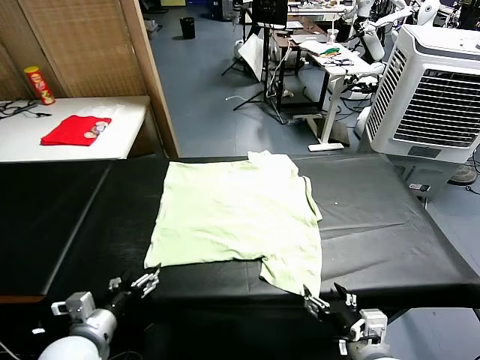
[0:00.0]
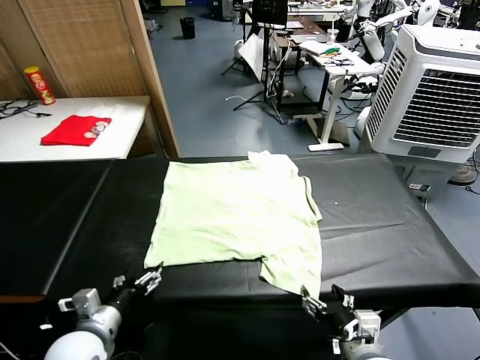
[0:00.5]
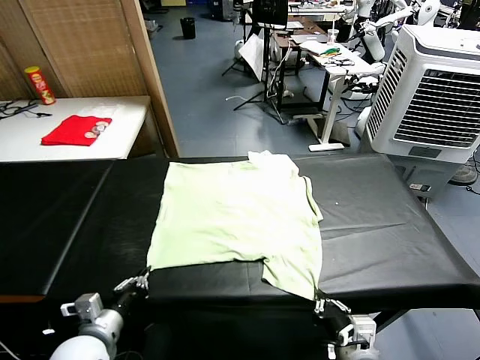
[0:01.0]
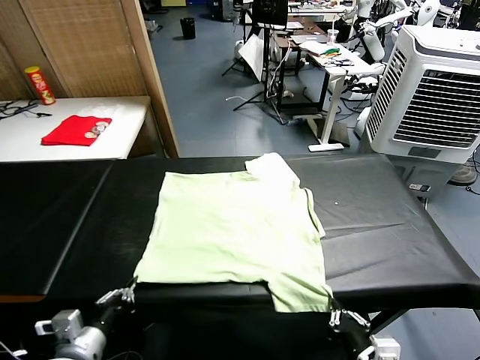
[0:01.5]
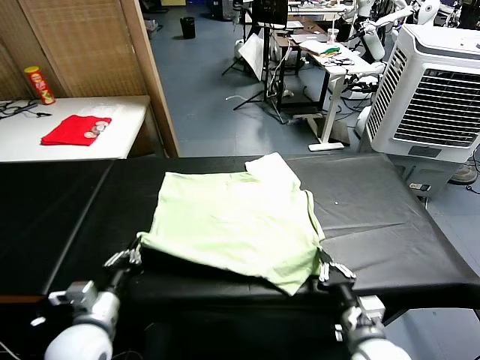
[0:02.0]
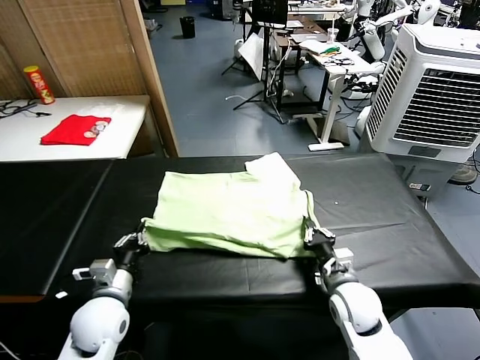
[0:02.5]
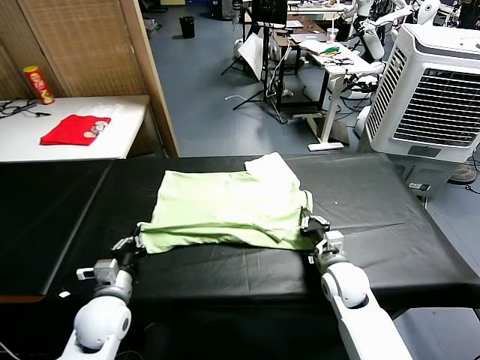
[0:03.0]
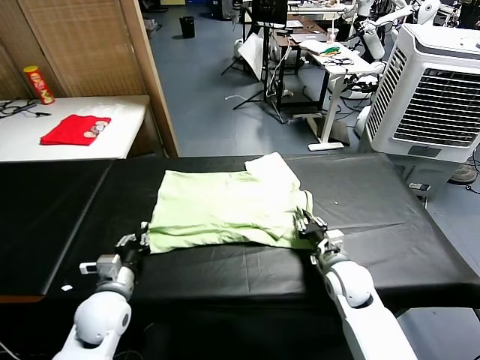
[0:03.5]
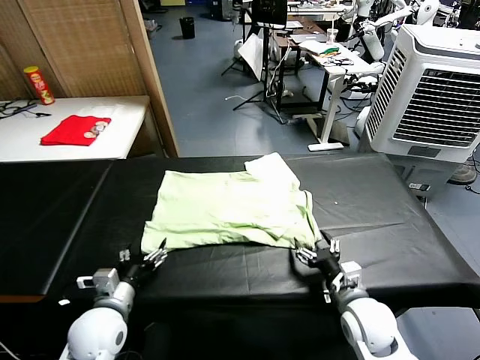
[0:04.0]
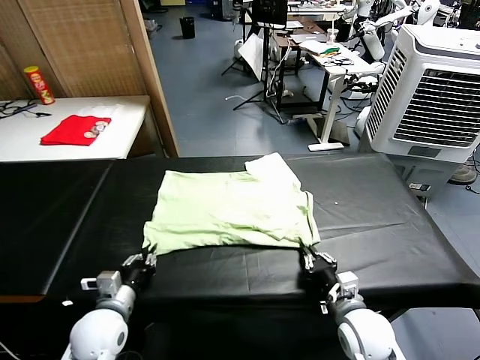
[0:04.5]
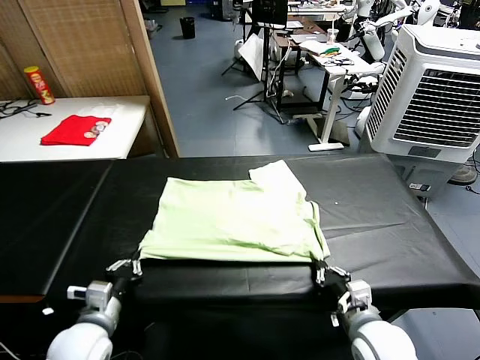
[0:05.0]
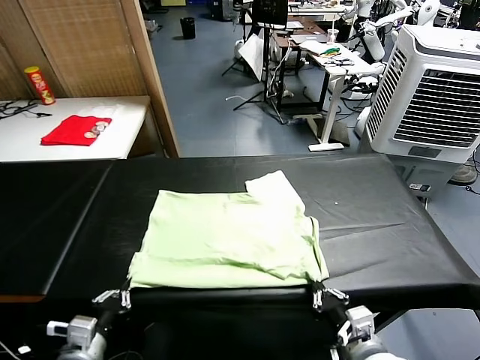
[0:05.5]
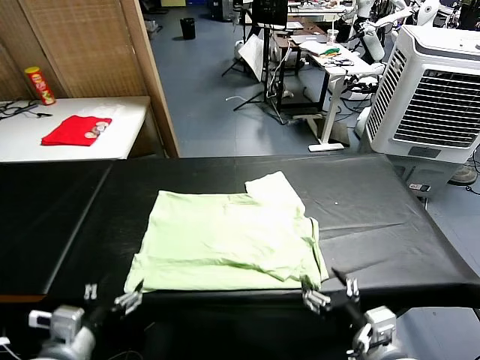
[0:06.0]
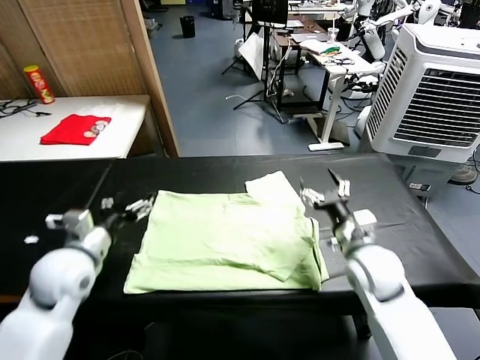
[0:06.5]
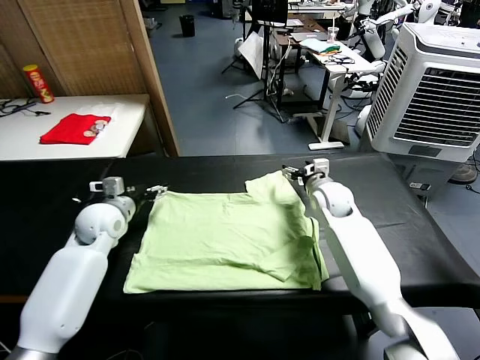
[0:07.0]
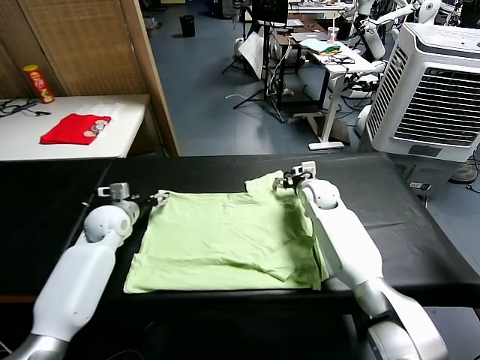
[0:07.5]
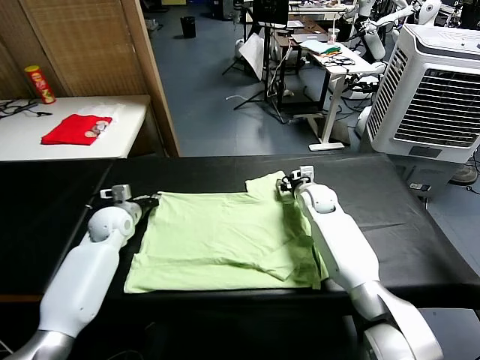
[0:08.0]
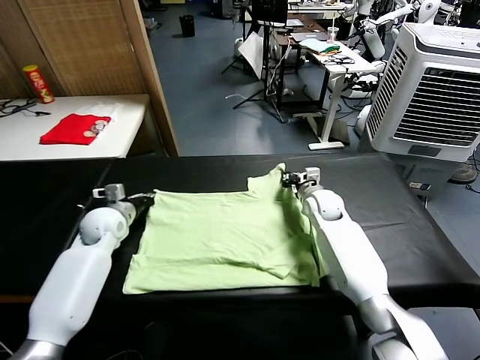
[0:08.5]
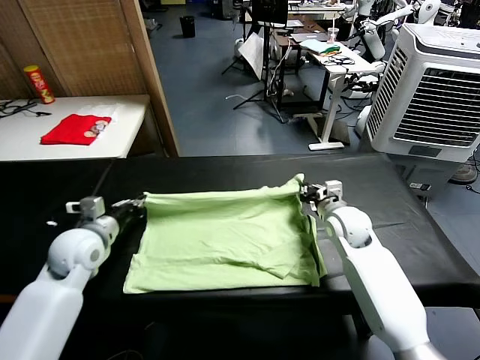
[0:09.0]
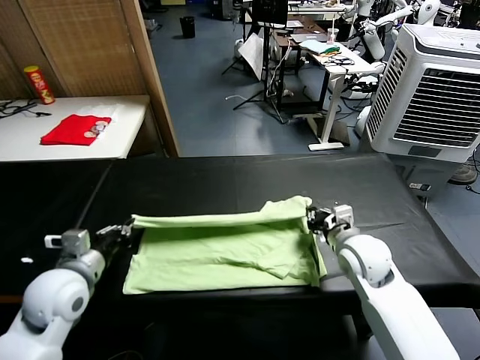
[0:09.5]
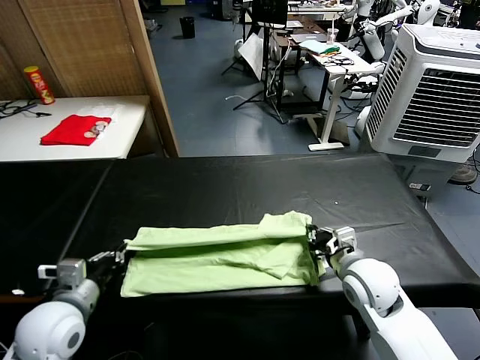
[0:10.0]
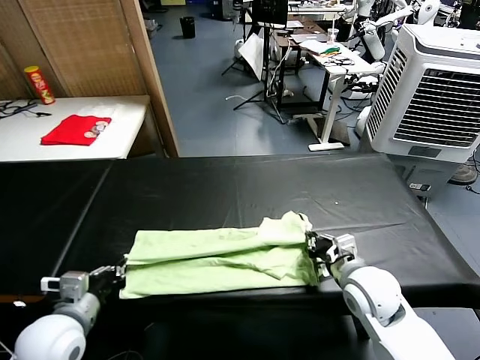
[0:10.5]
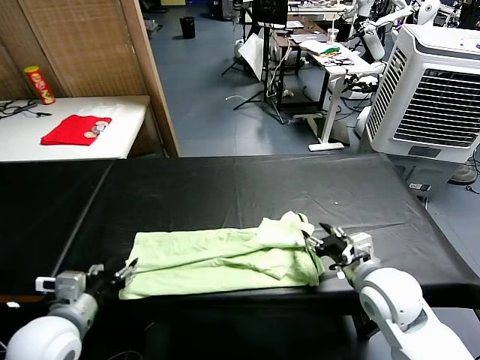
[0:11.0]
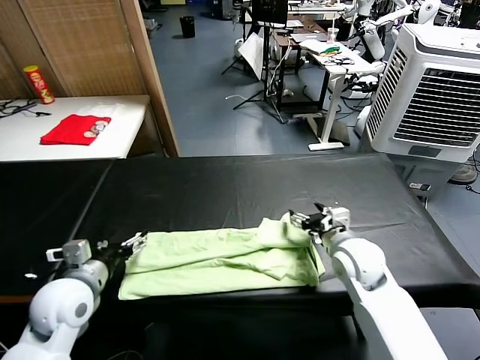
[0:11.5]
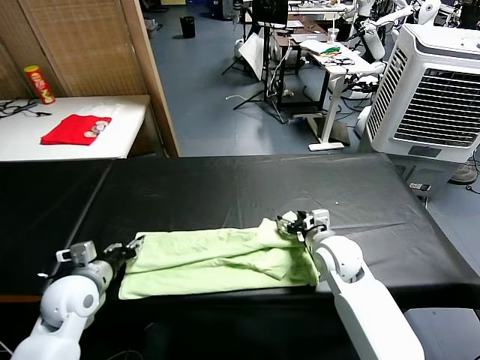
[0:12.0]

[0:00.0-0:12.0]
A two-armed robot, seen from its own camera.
Task of the whole recording: fold and organize the clothes.
Step, 0:00.0 to 0:01.0: use both grippers simultaneously to clamp the lower edge of the clothing fabric.
Step, 0:01.5 to 0:03.5: use both grippers to drag the lower edge of the fabric forward and fold it over the upper edge.
Step, 0:04.0 to 0:05.5: Drag the clothes downward with both gripper.
Step, 0:06.0 to 0:08.0: use both grippers simultaneously to clamp the upper edge of the clothing fabric.
Step, 0:08.5 to 0:11.0: use both grippers to drag the upper edge of the fabric backward and fold it over the lower edge.
0:02.0 to 0:04.0: The left gripper opens its fingers. Meanwhile the right gripper goes forward and returns, approximately 15 cm each way, and opens its fingers.
0:04.0 to 0:06.0: The grippers both shift upward and backward by some 15 cm. The left gripper closes, then reopens. Meanwhile the right gripper closes, then reopens.
0:06.0 to 0:08.0: The two grippers go about 35 cm forward. The left gripper closes, while the right gripper closes its fingers.
0:08.0 to 0:10.0: Both grippers move backward, about 25 cm.
0:10.0 to 0:12.0: The grippers both shift forward by some 5 cm. The right gripper opens up; the left gripper opens.

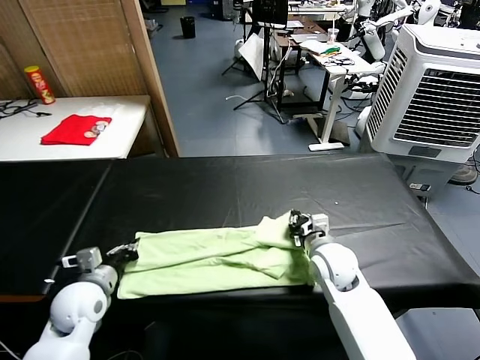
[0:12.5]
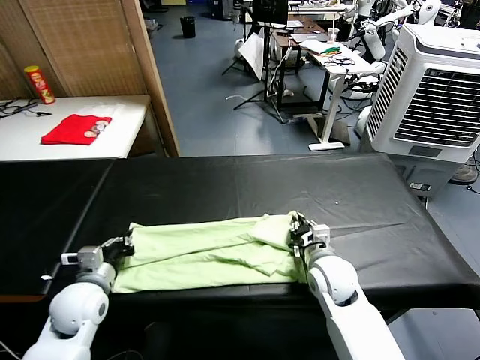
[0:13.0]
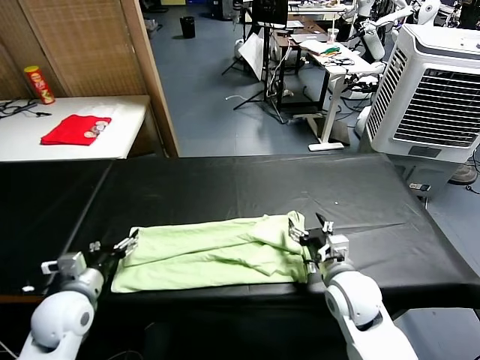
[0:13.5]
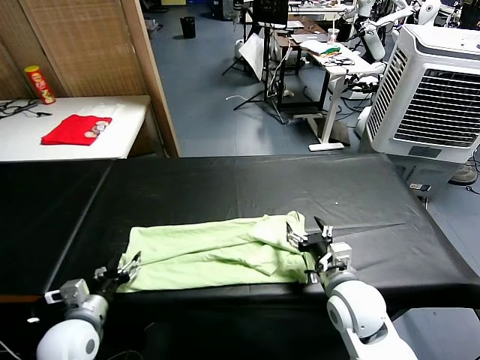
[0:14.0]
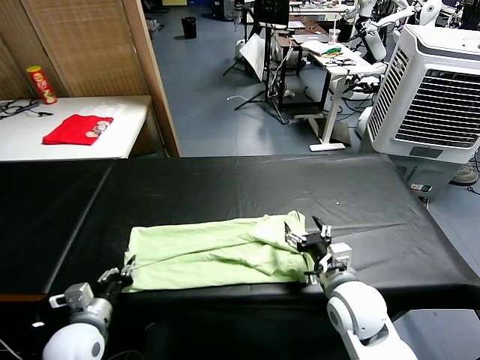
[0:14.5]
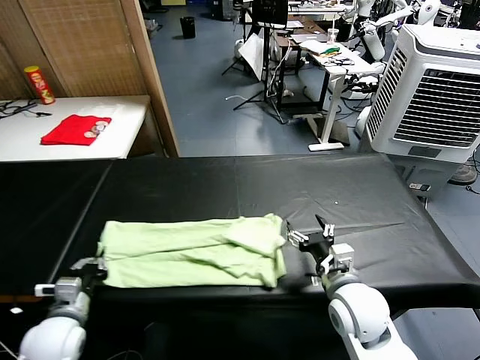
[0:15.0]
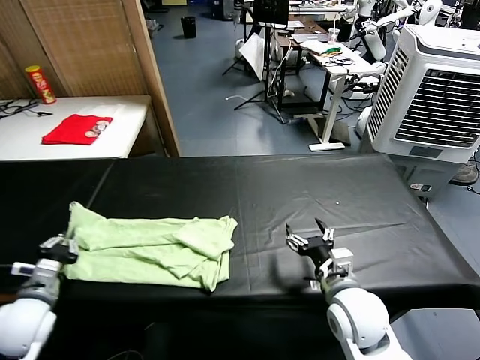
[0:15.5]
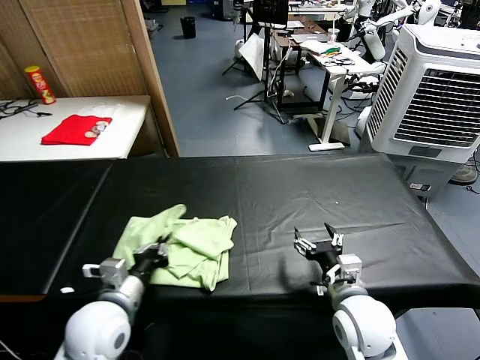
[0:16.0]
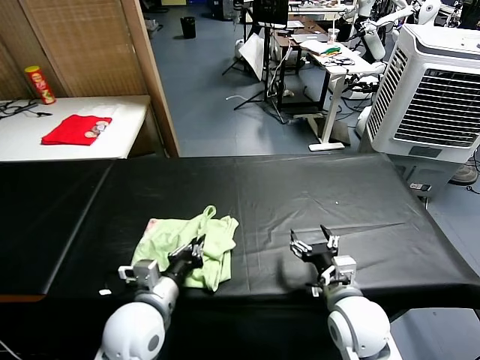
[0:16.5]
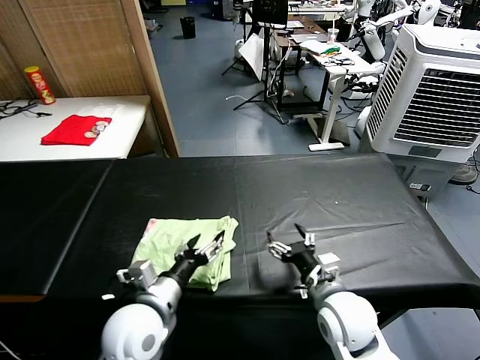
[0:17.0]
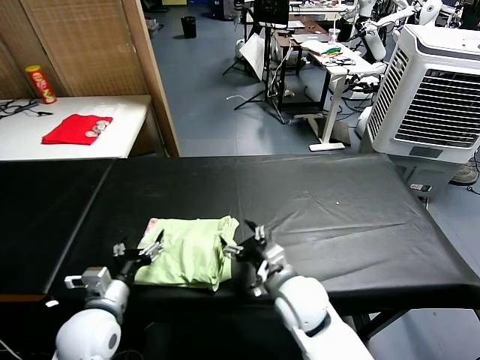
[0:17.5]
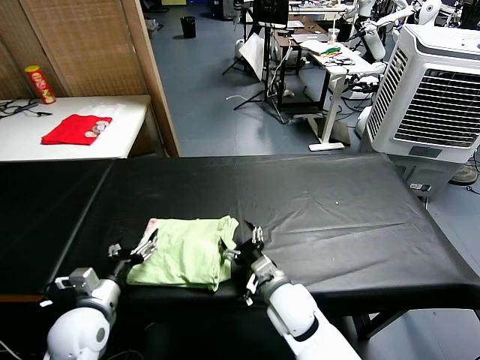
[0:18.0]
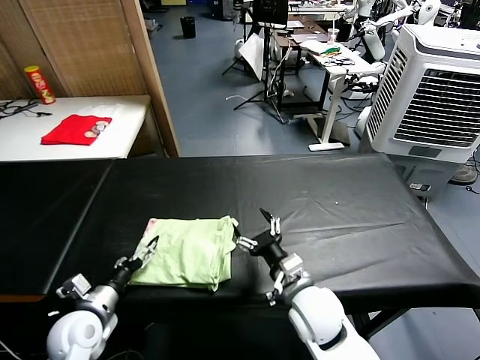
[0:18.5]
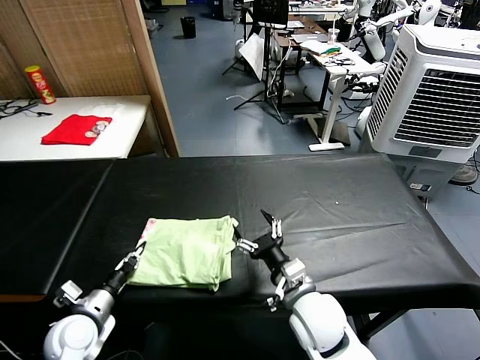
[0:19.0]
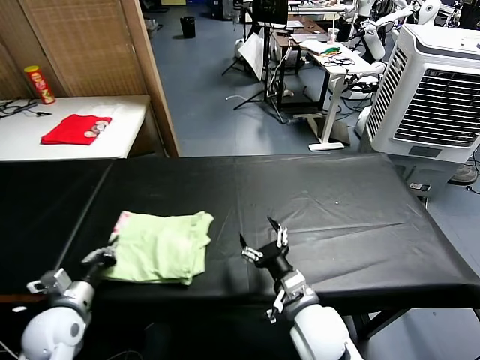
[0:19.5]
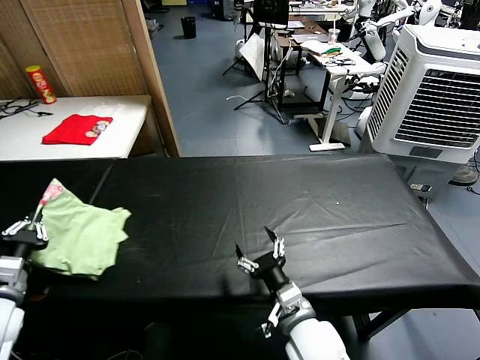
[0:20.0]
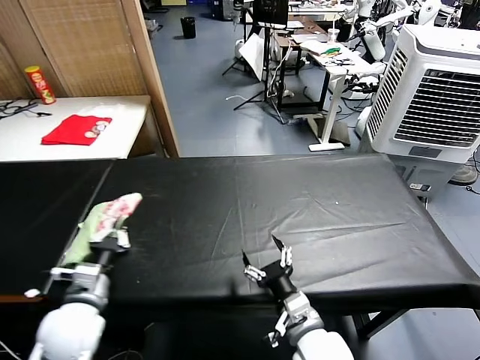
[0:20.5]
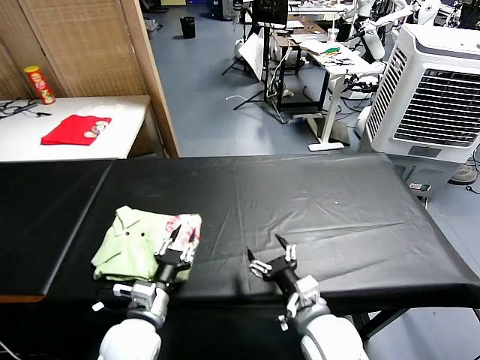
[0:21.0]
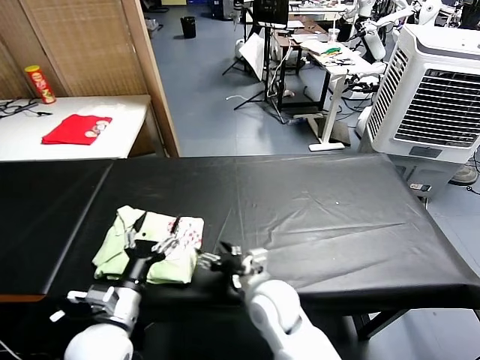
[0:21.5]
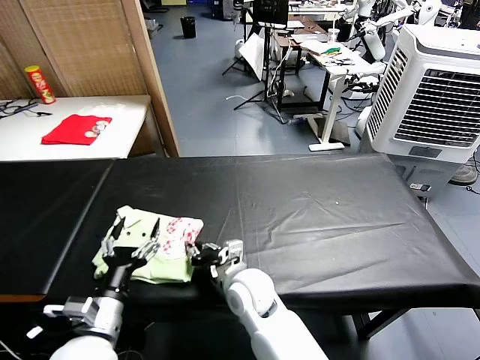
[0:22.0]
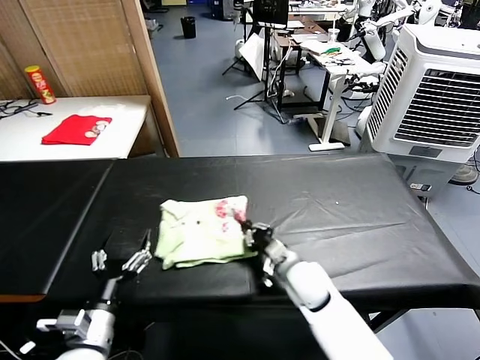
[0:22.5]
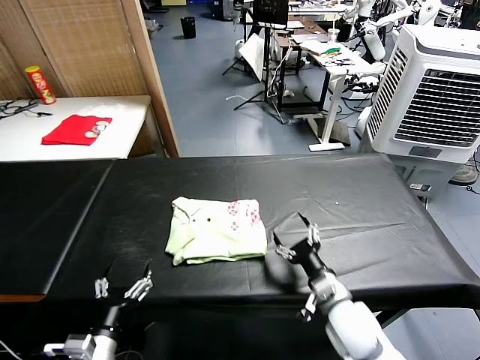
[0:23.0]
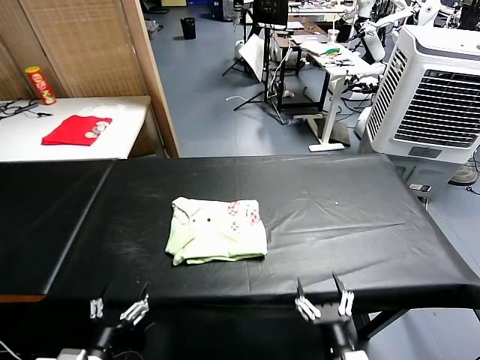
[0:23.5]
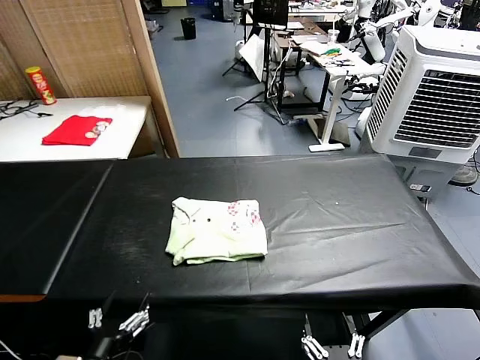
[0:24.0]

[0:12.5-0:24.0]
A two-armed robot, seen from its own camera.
Task of the whole recording: fold and organize the clothes.
Step, 0:12.5 to 0:14.5: use the left gripper to clamp the left edge of the fabric.
Step, 0:15.0 to 0:16.5: use the left gripper to drag the left edge of the fabric to the left and folds it over the right edge.
Step, 0:17.0 to 0:21.0: Flip the folded clothes over with left gripper.
Step, 0:21.5 to 0:22.5: Drag the clothes to the center of the table.
0:12.5 to 0:14.5: Both grippers travel together backward, about 10 cm. The right gripper opens its fingers; the left gripper opens and closes again.
0:14.5 to 0:16.5: The left gripper shifts some 15 cm to the right and upward.
0:16.5 to 0:18.5: The right gripper travels to the left by some 5 cm; the left gripper shifts approximately 20 cm to the left and downward, and opens its fingers.
0:18.5 to 0:20.0: The left gripper travels to the left and upward by some 15 cm, and closes up. Meanwhile the right gripper goes approximately 5 cm backward.
0:20.0 to 0:22.0: The left gripper shifts approximately 20 cm to the right, and opens up, while the right gripper shifts approximately 15 cm to the left and forward, and closes its fingers.
0:22.0 to 0:24.0: The right gripper shifts approximately 35 cm backward and to the right, and opens its fingers. The left gripper shifts approximately 10 cm backward.
